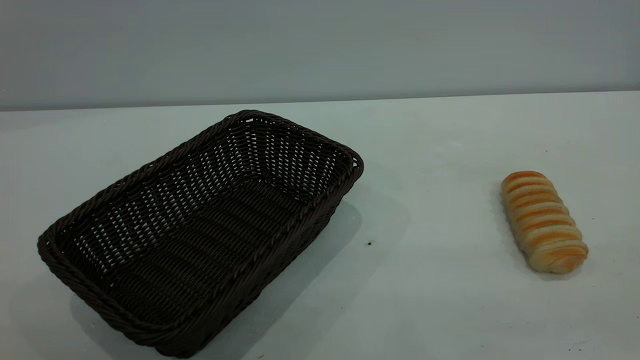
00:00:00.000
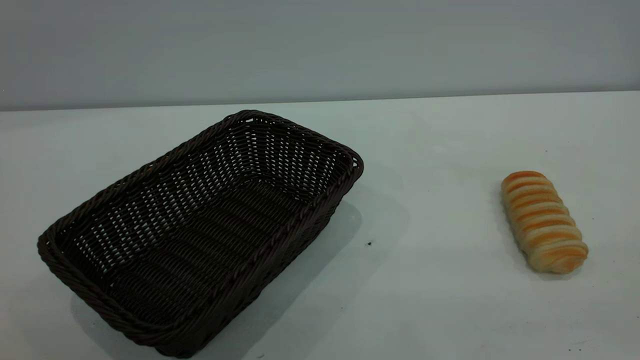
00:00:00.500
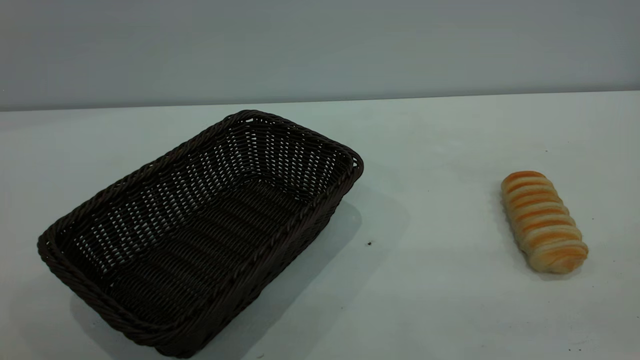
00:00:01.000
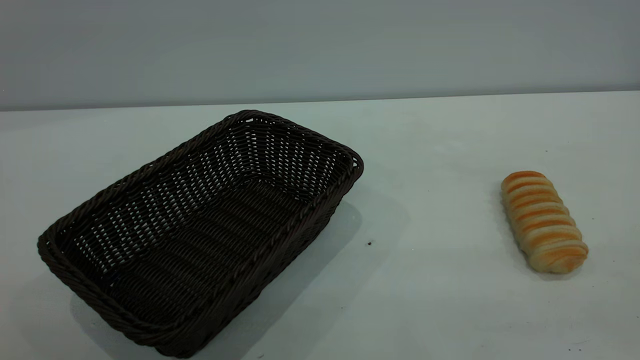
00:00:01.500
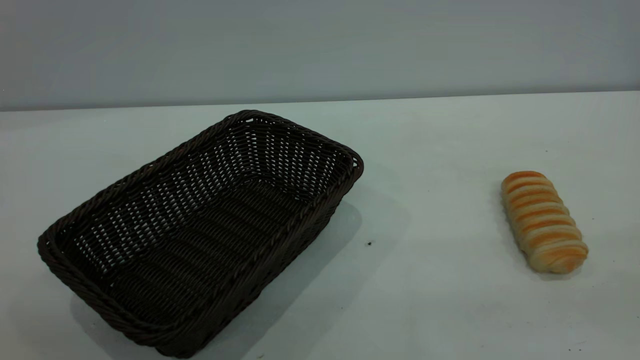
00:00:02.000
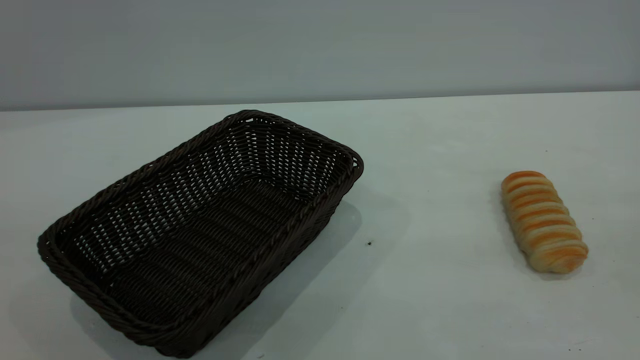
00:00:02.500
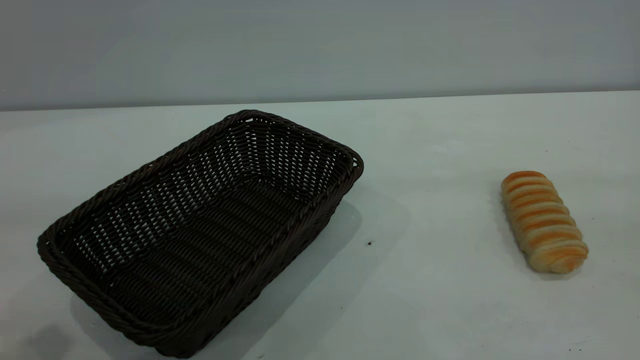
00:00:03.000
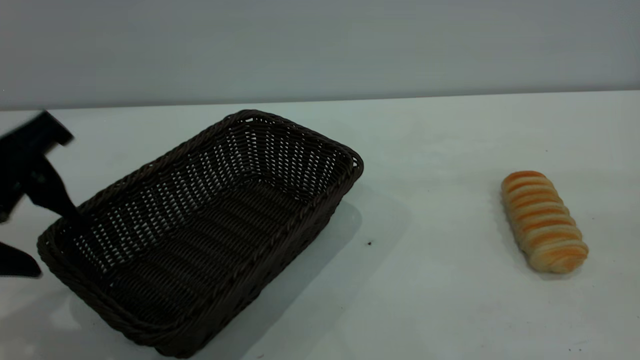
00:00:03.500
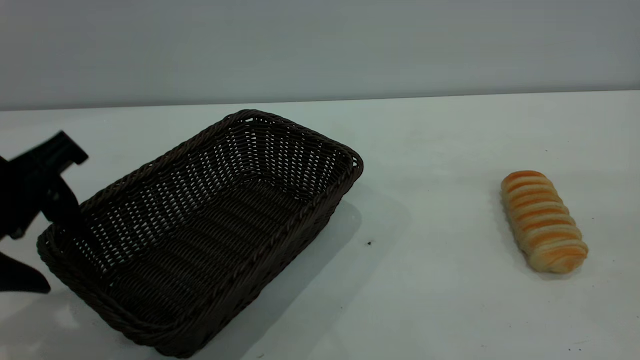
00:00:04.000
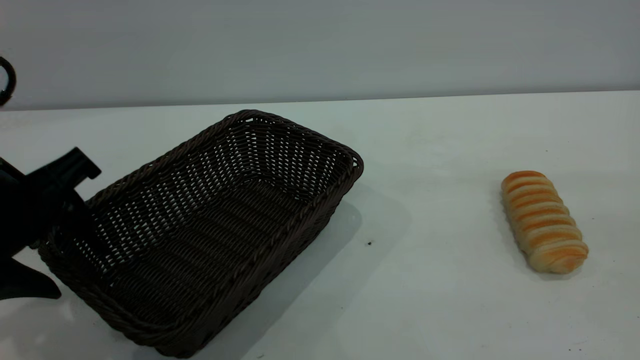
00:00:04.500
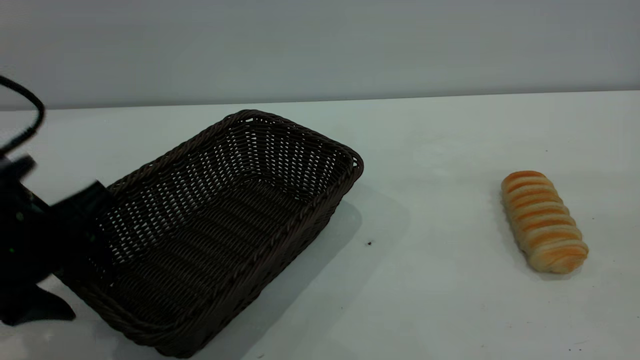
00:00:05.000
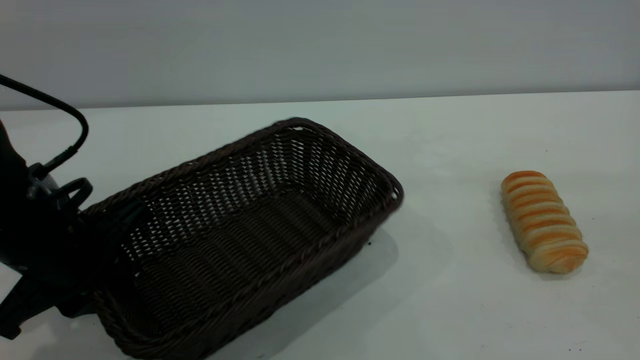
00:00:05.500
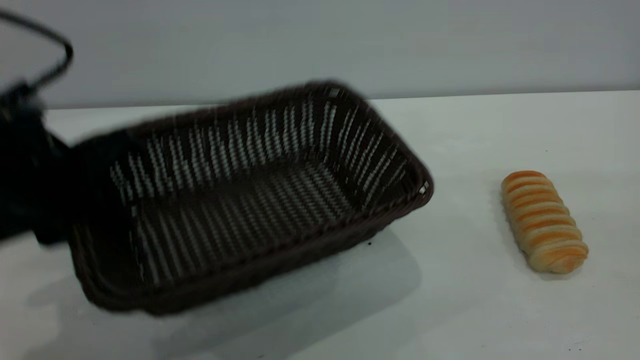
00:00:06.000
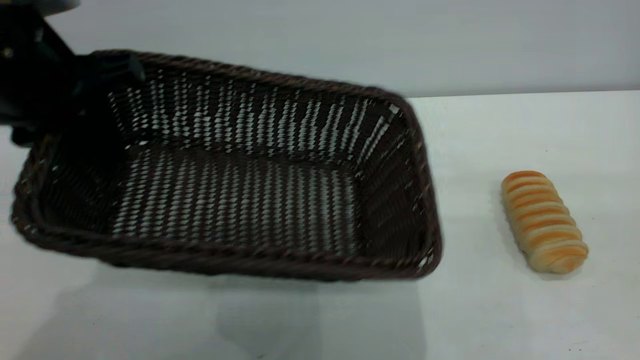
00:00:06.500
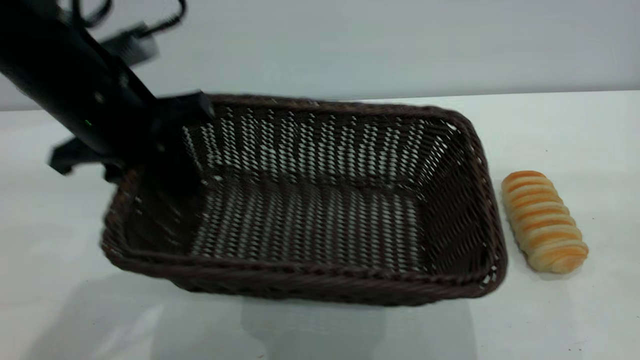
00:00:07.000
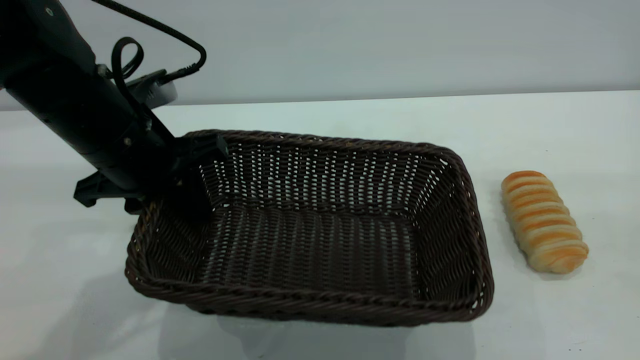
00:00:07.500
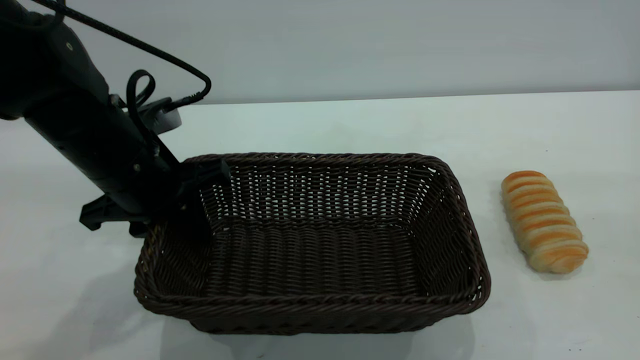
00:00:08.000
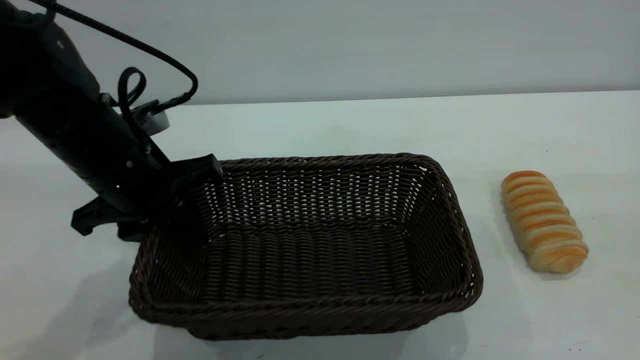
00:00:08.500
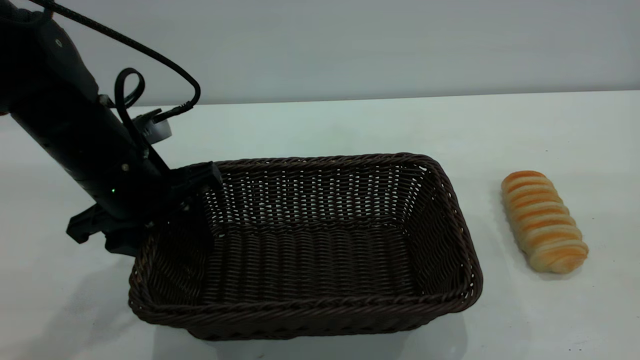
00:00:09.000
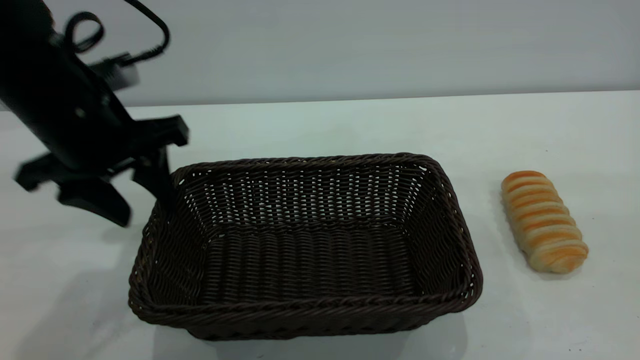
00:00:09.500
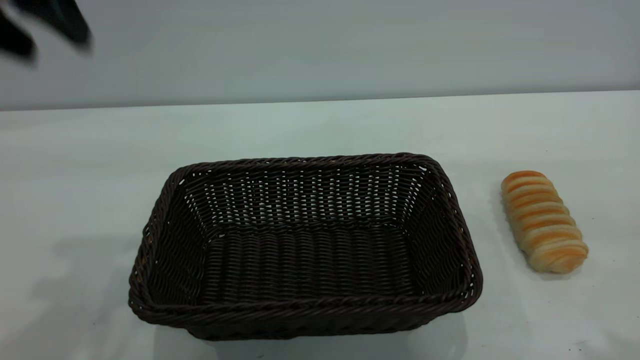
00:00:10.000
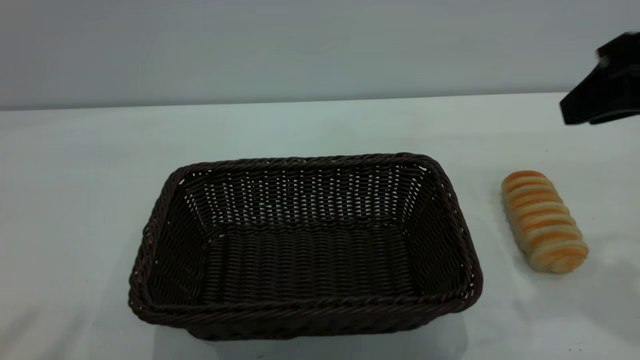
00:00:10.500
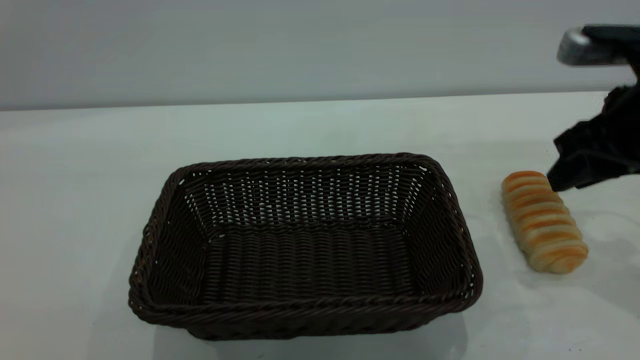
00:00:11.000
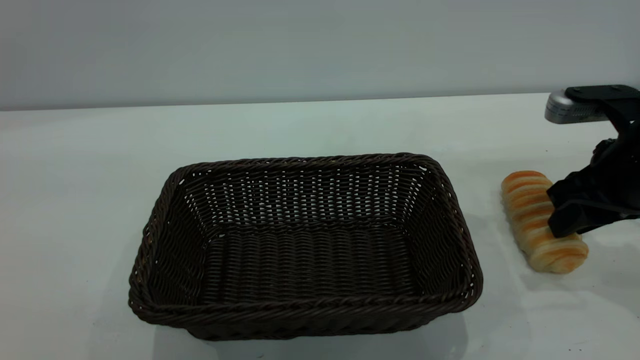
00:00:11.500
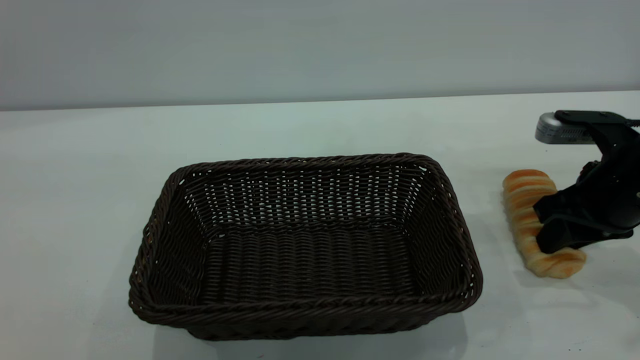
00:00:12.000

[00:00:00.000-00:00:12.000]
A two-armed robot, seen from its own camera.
Task of the whole recording: One hand grasps the black basket and places it in the middle of the table, while the other hand picks up the long bread and puts it into the black basket.
Step, 00:00:00.000 to 00:00:09.500: Move the basket to the center of view.
00:00:02.000 to 00:00:04.000: The left gripper moves forward and downward, about 30 cm.
00:00:04.000 to 00:00:06.000: The left gripper reaches some 10 cm downward, then returns, and closes.
00:00:06.000 to 00:00:08.000: The left gripper moves forward and downward, some 10 cm.
00:00:08.000 to 00:00:10.000: The right gripper shifts some 5 cm forward, while the left gripper travels upward by about 25 cm, and opens.
00:00:10.000 to 00:00:12.000: The left gripper moves backward and upward, approximately 25 cm. Meanwhile the right gripper is displaced downward and forward by about 30 cm.

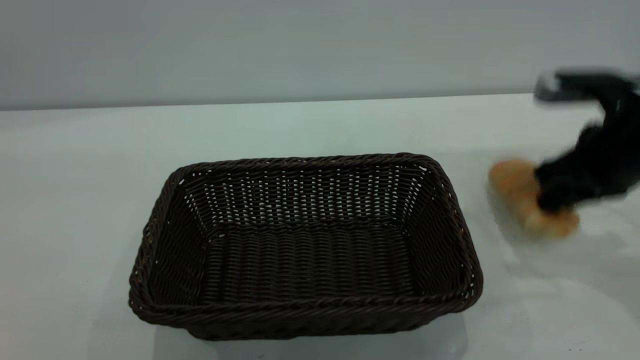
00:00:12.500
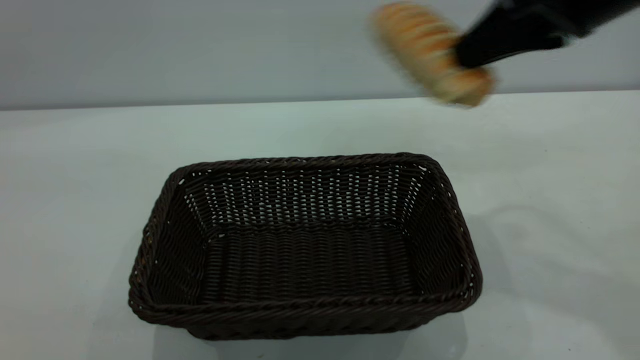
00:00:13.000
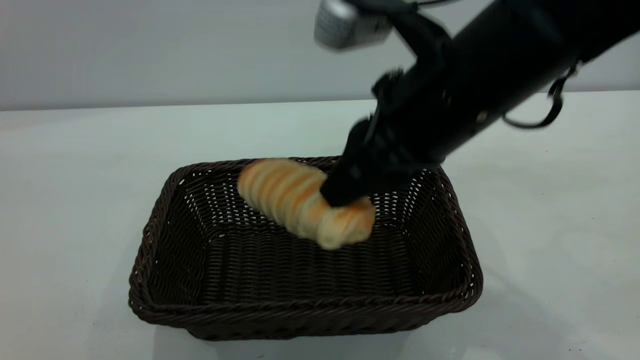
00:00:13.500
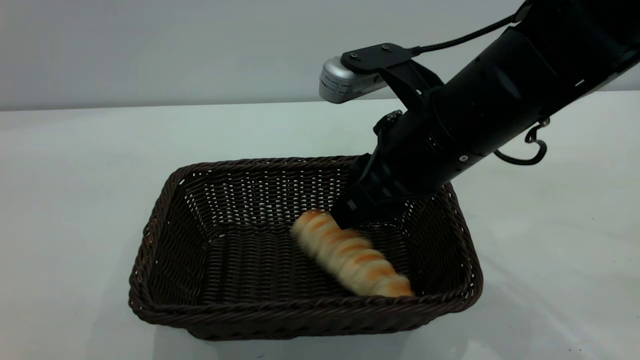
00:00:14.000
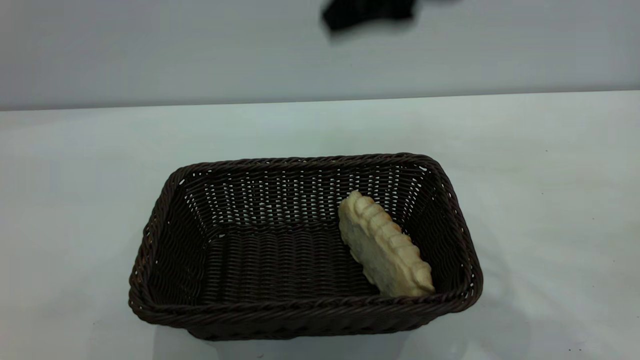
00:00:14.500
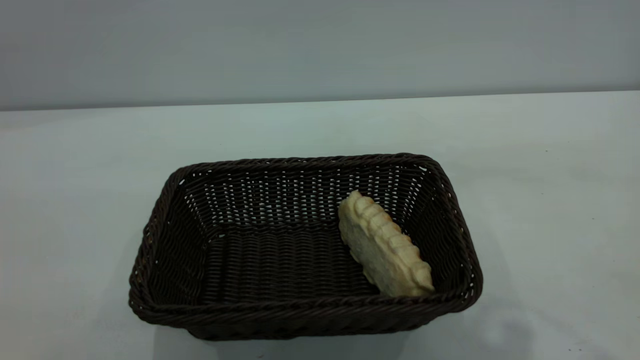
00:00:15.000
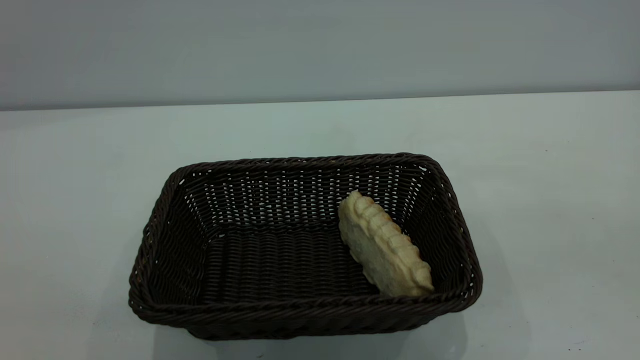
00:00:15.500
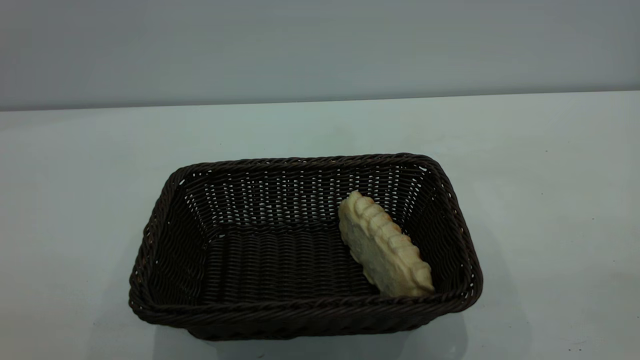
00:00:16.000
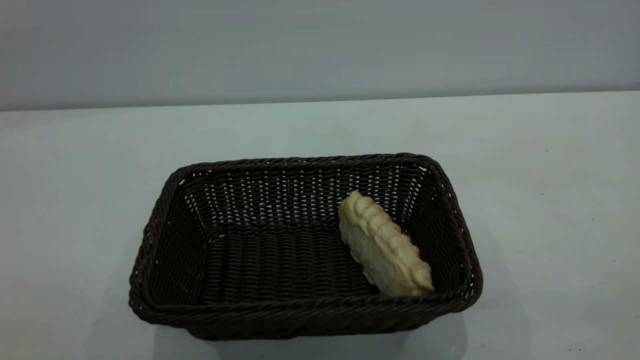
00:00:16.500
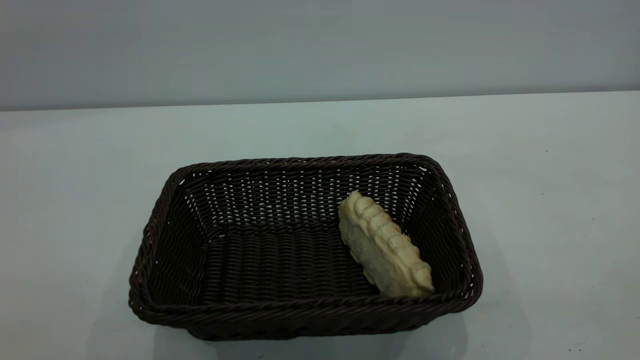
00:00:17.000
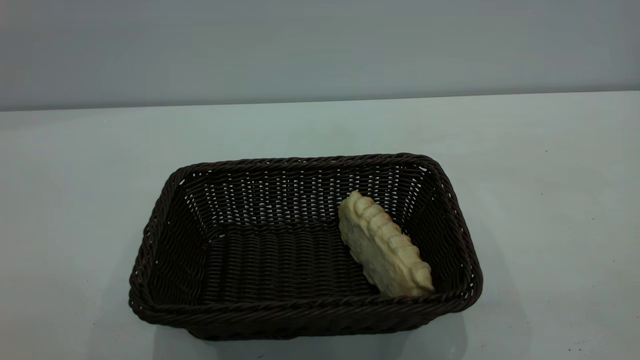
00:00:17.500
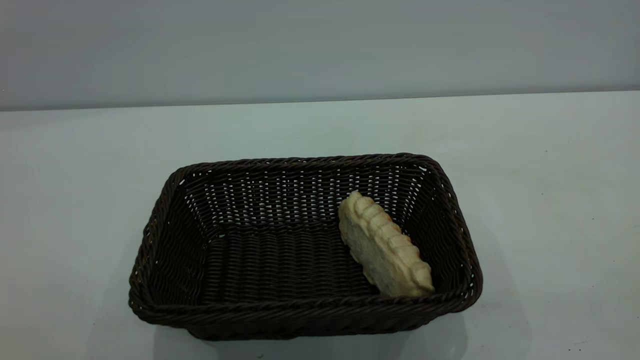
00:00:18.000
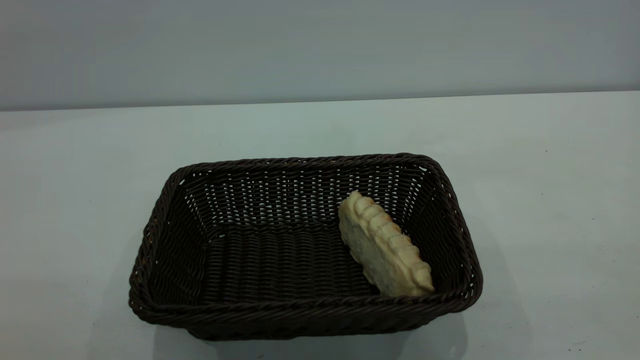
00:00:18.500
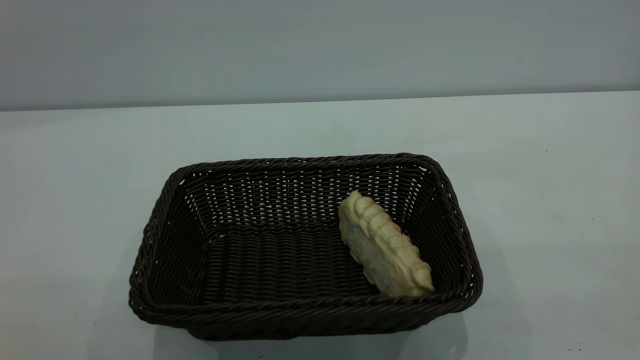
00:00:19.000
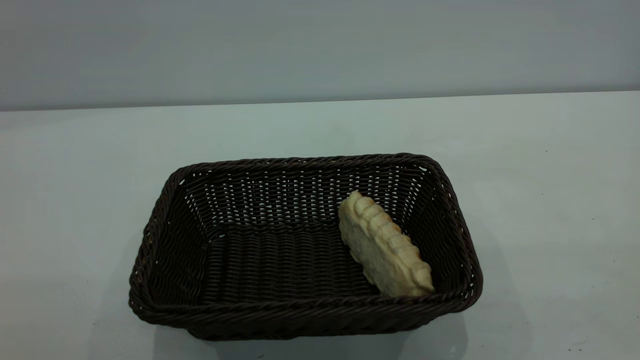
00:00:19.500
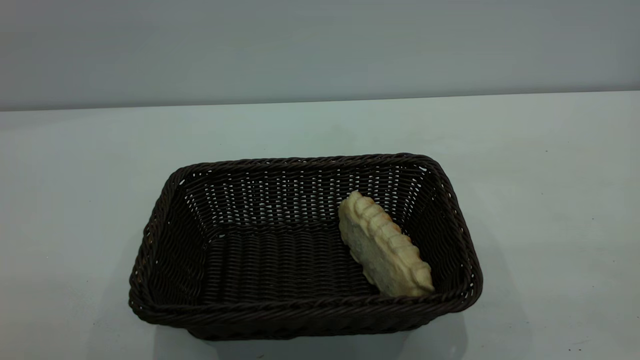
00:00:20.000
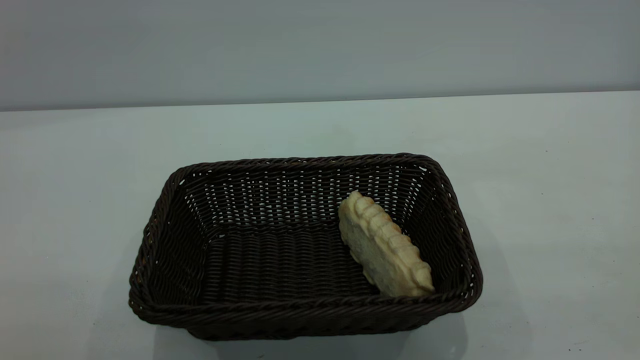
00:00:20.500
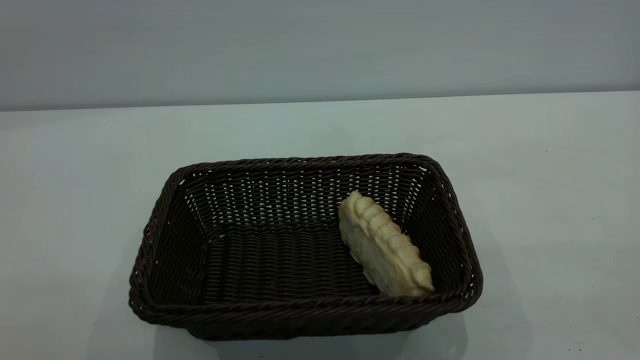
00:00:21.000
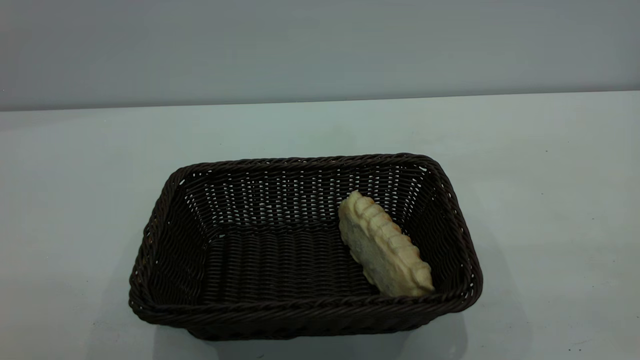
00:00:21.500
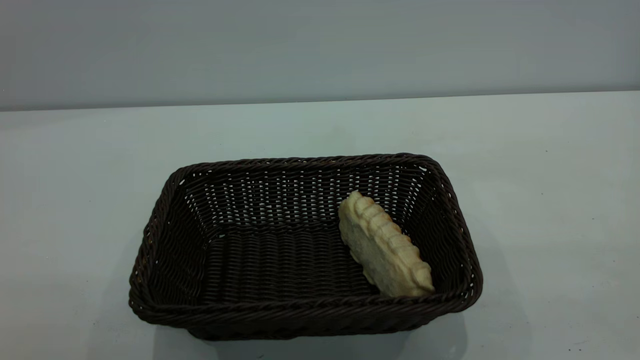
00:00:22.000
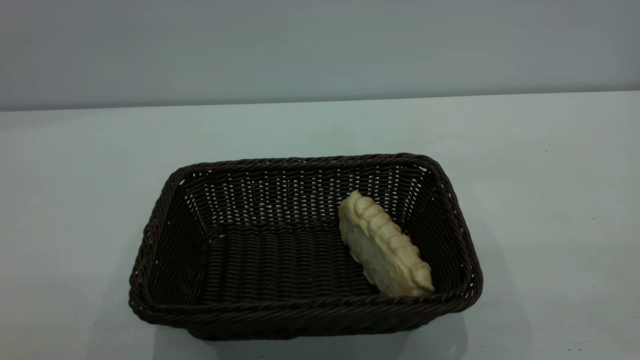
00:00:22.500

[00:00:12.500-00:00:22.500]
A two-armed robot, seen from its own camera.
Task of the whole recording: One hand grasps the black basket and places it in the middle of the table, while the other hand picks up the long bread and puts it into the black basket.
Step, 00:00:13.000 to 00:00:14.000: place the bread into the basket.
00:00:12.500 to 00:00:14.500: The right gripper goes up and down, approximately 20 cm each way, reversing 2 times, and opens up.
00:00:14.500 to 00:00:16.500: The left gripper is displaced downward by approximately 15 cm; the right gripper travels backward and to the right by roughly 30 cm.
00:00:18.500 to 00:00:22.500: Neither gripper changes place.
